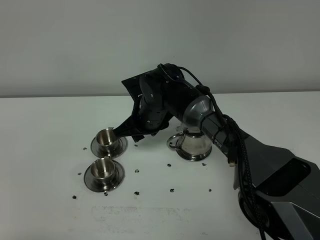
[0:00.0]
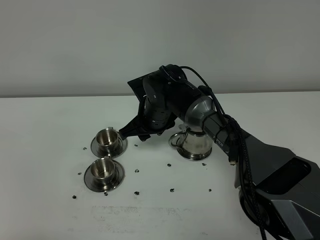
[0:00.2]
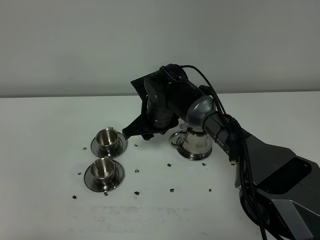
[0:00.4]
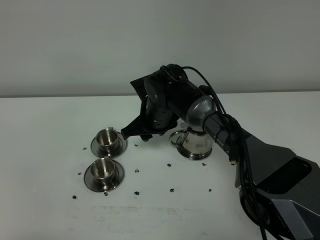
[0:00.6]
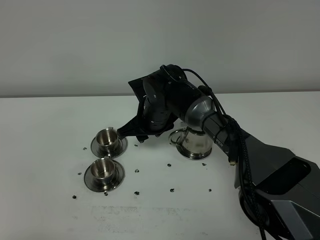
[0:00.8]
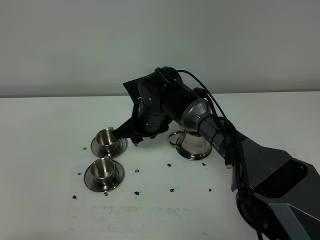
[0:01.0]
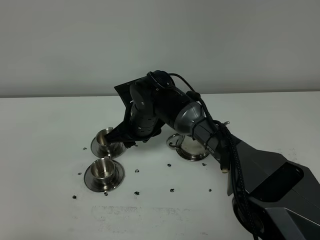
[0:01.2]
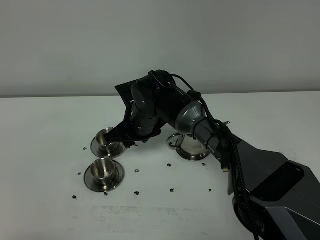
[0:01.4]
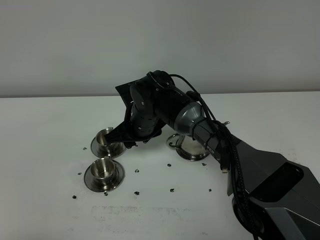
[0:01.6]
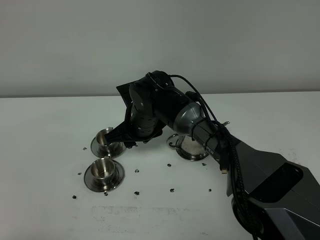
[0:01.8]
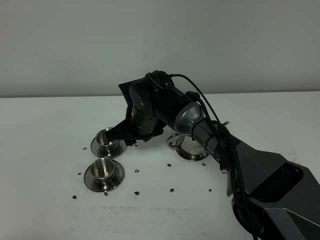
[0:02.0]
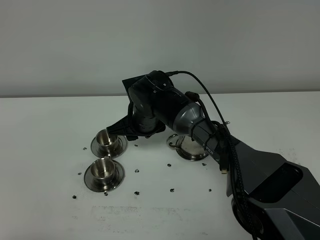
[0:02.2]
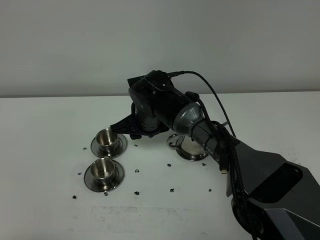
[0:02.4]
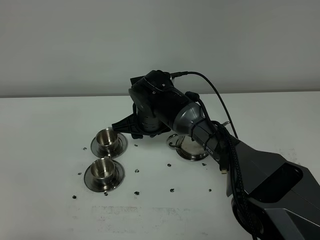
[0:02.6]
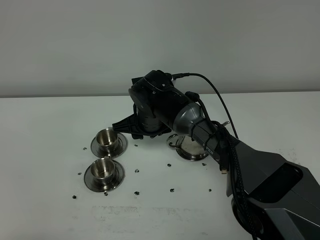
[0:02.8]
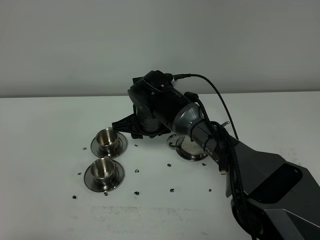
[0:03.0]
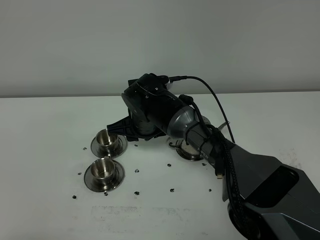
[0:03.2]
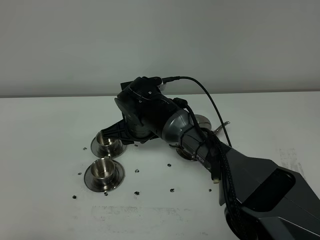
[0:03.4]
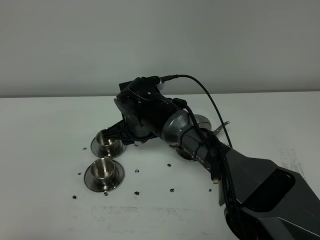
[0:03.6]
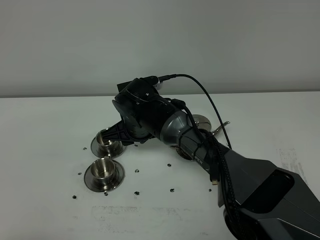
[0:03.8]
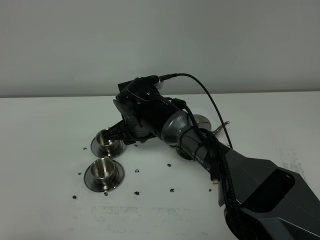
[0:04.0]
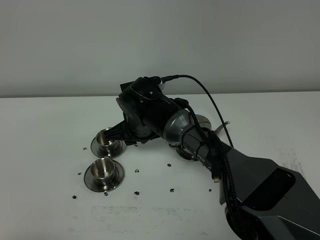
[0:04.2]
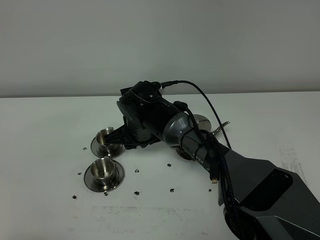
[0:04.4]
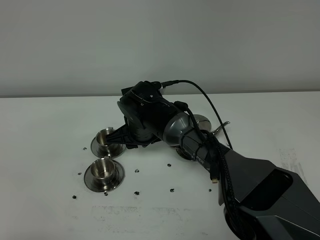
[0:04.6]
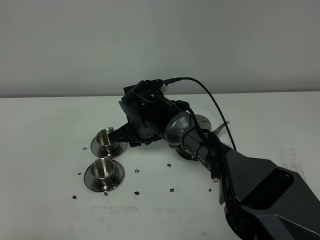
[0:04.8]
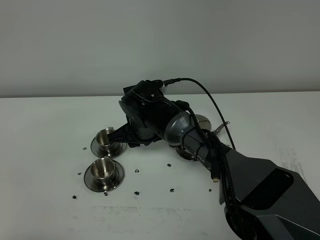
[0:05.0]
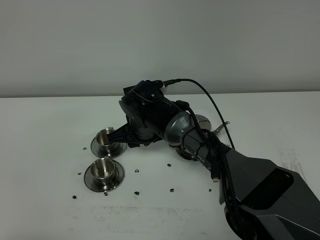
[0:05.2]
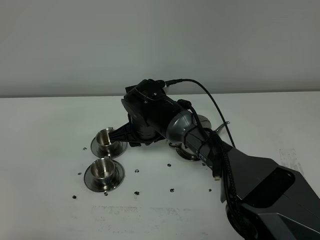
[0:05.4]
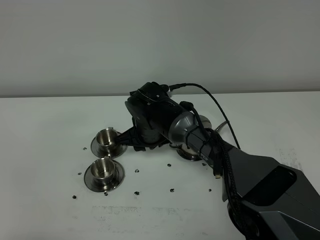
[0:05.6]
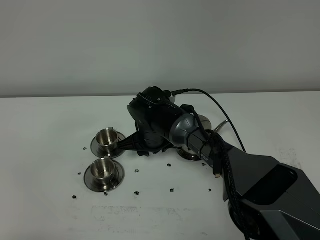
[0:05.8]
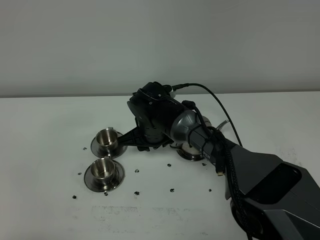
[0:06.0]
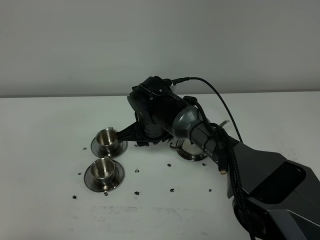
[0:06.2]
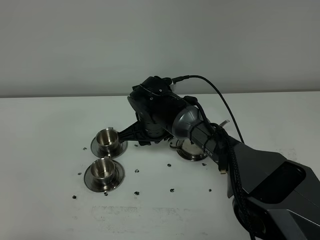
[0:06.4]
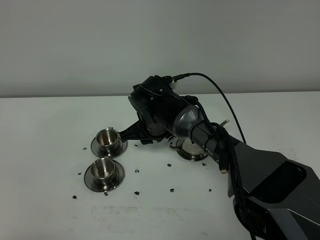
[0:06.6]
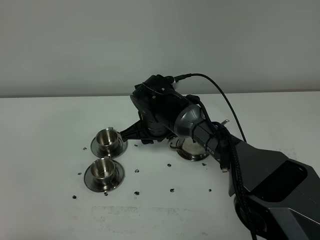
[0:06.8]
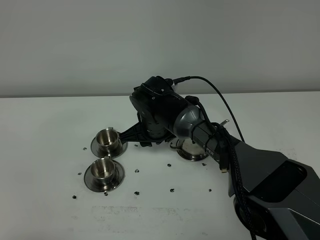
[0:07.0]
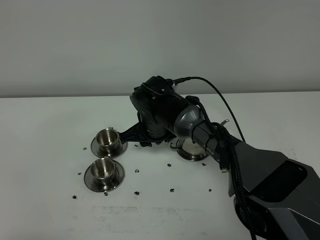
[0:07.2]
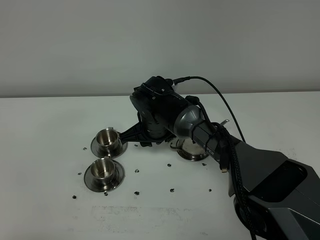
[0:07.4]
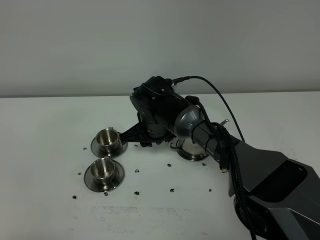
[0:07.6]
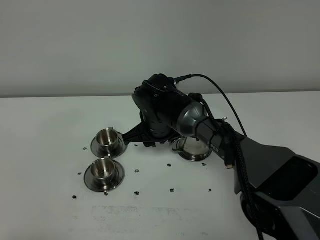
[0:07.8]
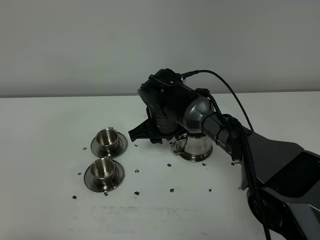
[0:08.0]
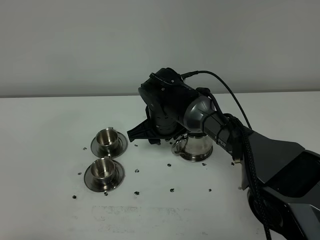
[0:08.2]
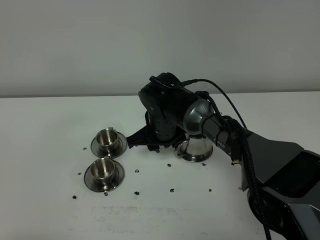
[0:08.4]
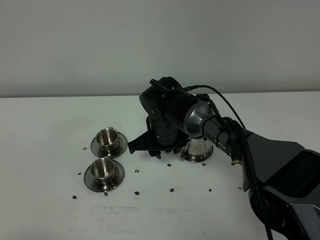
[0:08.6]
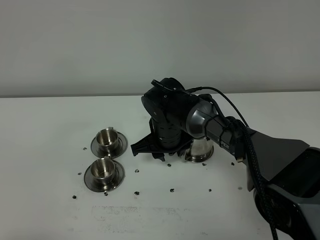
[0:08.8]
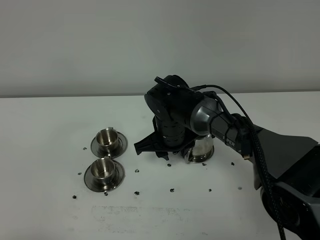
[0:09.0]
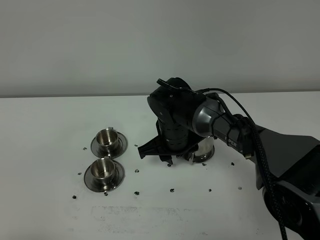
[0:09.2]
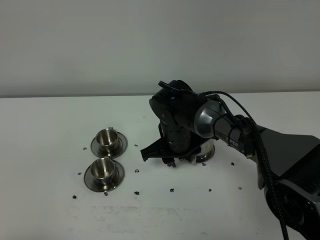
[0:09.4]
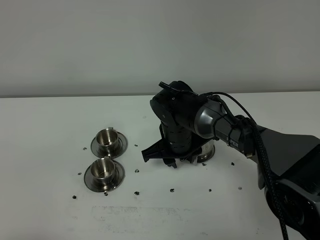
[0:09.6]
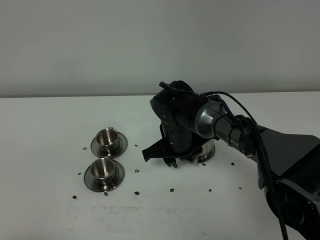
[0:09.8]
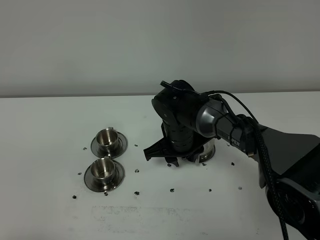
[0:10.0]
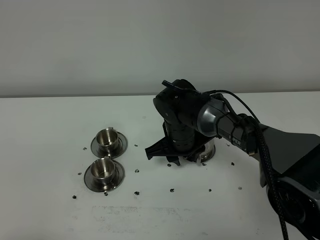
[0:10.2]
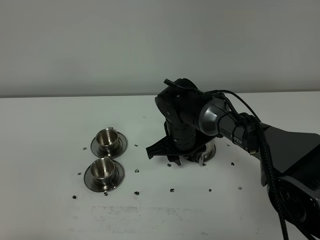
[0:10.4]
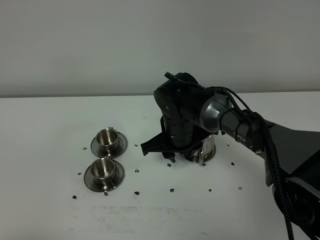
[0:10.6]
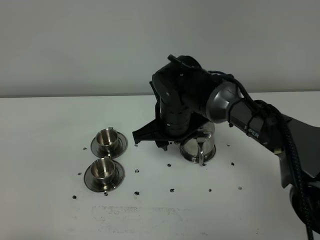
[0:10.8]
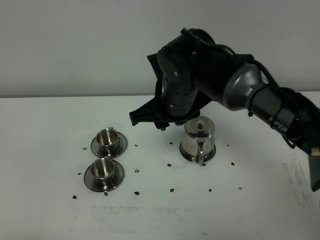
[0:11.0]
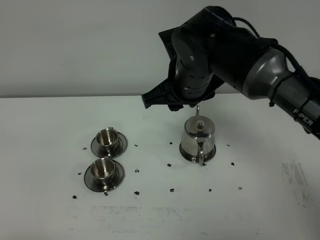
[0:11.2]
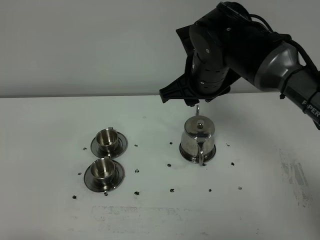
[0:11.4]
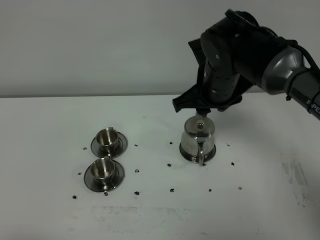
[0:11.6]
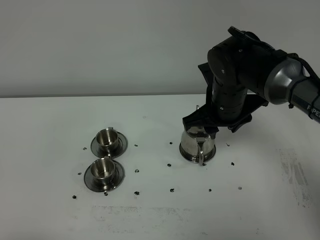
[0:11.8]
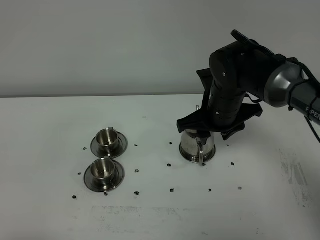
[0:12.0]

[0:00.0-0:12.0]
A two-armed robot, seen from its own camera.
Task of the whole recording: grasp the stainless steel teapot and pour the tea into the two stainless steel teacups one by one, put the stainless steel teapot back in its original place.
0:00.0 to 0:01.6: There are only small adjustments of the grippers.
0:01.6 to 0:06.0: The grippers make only small movements.
0:06.0 to 0:07.6: Neither gripper changes place.
0:07.6 to 0:10.4: There are only small adjustments of the grippers.
0:10.4 to 0:12.0: The right gripper moves upward and to the right, some 10 cm.

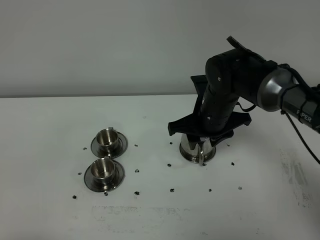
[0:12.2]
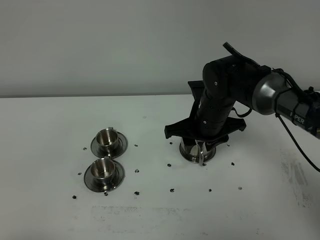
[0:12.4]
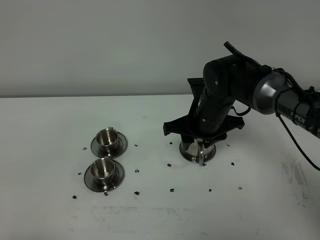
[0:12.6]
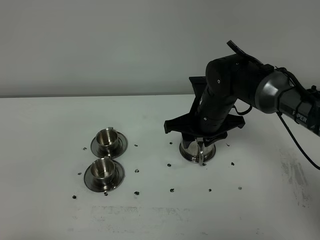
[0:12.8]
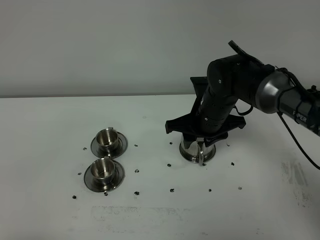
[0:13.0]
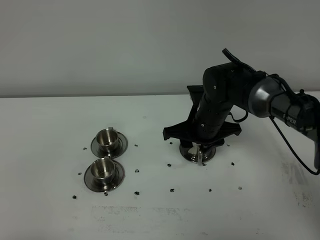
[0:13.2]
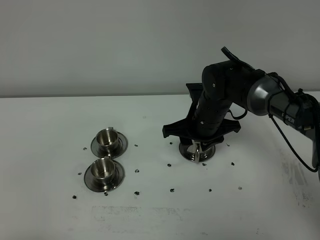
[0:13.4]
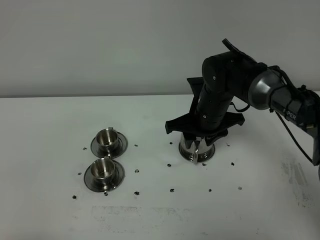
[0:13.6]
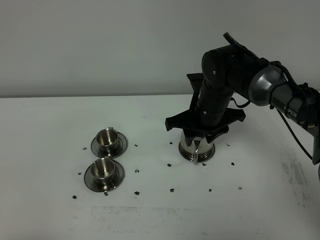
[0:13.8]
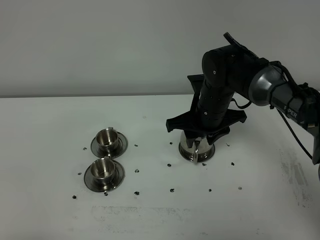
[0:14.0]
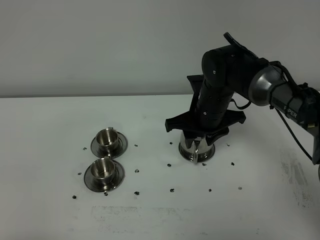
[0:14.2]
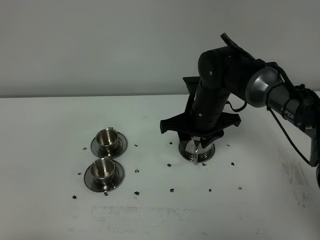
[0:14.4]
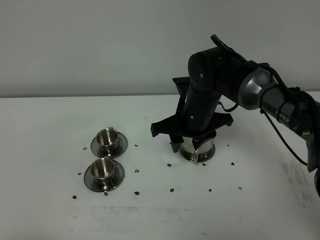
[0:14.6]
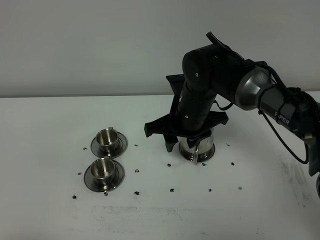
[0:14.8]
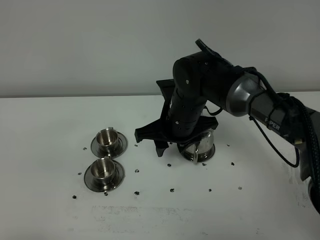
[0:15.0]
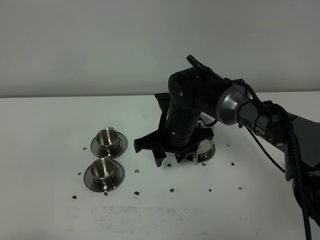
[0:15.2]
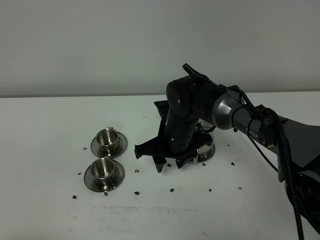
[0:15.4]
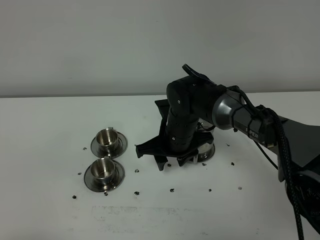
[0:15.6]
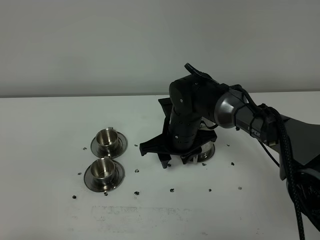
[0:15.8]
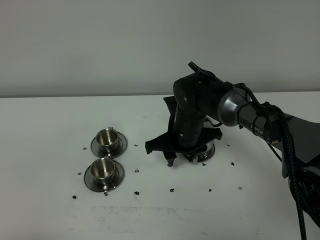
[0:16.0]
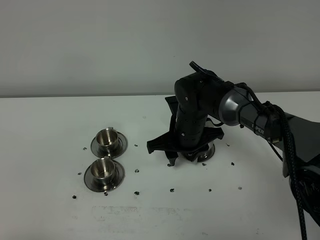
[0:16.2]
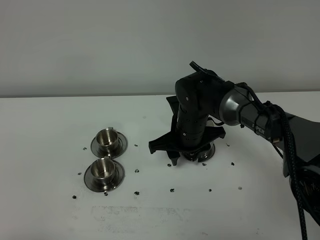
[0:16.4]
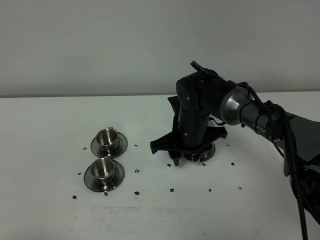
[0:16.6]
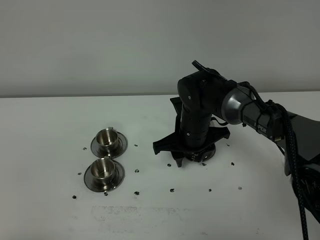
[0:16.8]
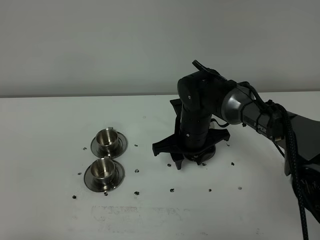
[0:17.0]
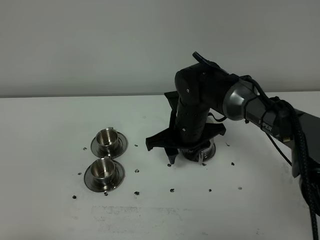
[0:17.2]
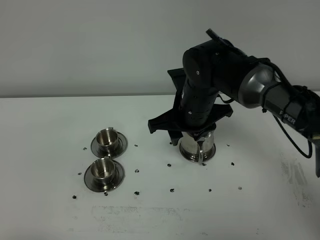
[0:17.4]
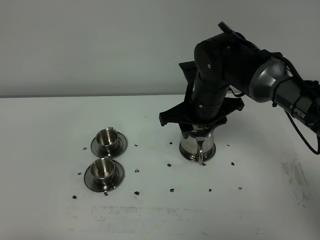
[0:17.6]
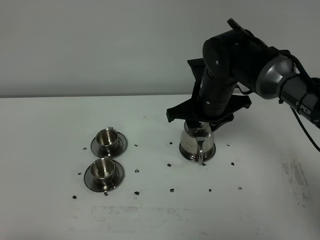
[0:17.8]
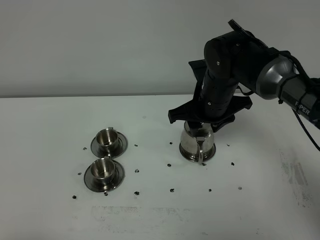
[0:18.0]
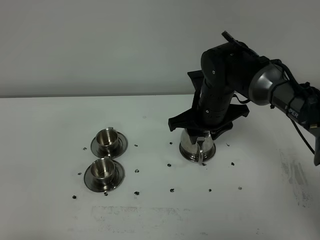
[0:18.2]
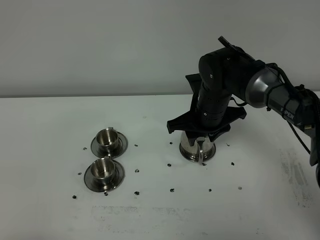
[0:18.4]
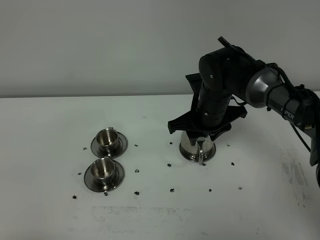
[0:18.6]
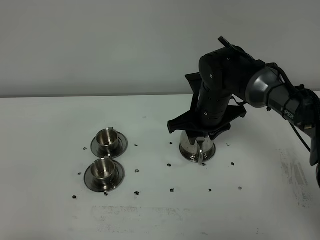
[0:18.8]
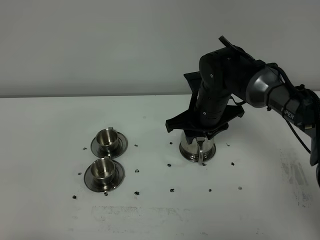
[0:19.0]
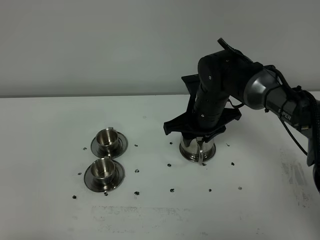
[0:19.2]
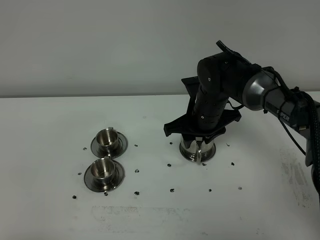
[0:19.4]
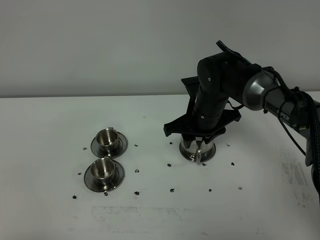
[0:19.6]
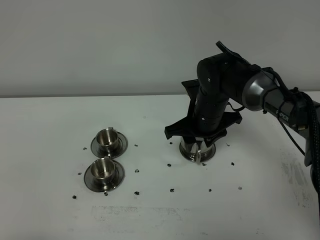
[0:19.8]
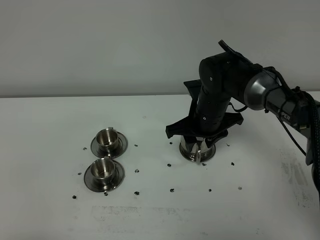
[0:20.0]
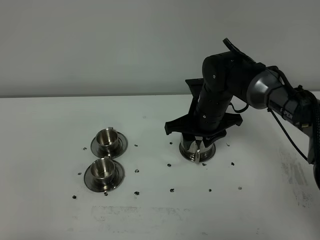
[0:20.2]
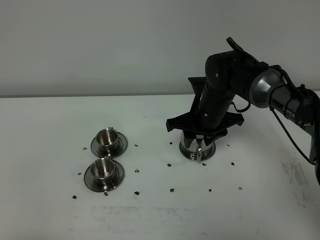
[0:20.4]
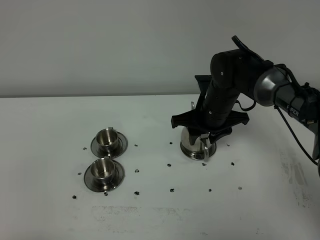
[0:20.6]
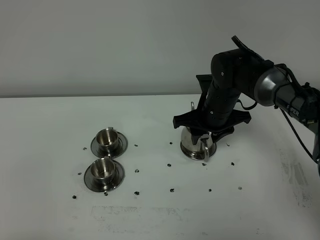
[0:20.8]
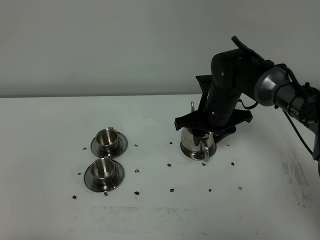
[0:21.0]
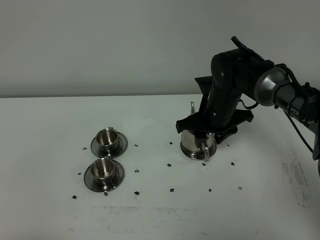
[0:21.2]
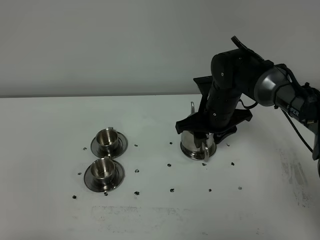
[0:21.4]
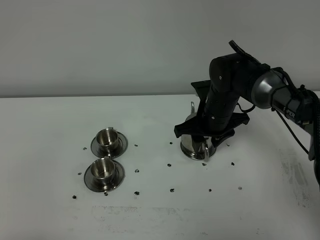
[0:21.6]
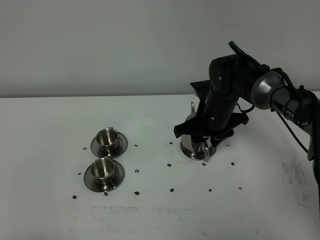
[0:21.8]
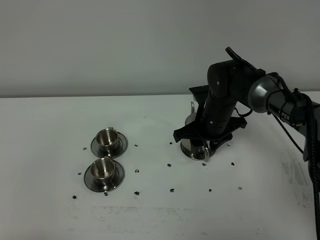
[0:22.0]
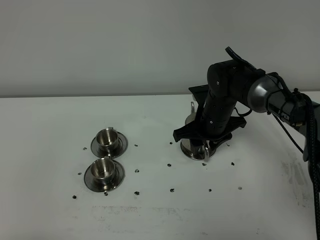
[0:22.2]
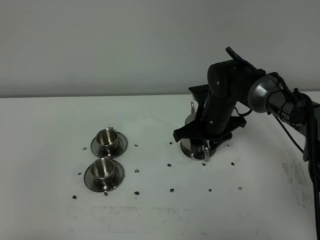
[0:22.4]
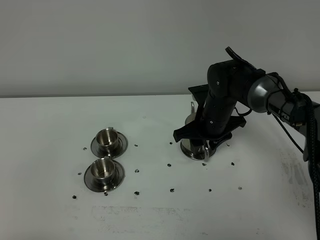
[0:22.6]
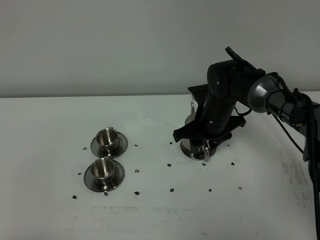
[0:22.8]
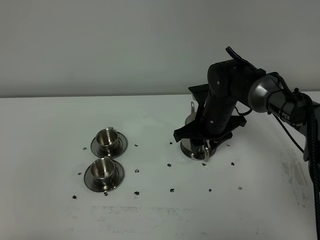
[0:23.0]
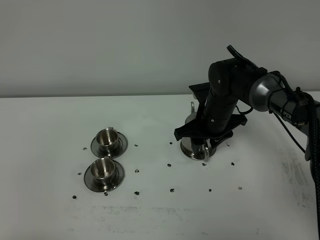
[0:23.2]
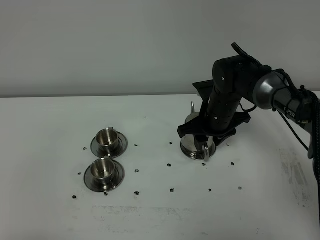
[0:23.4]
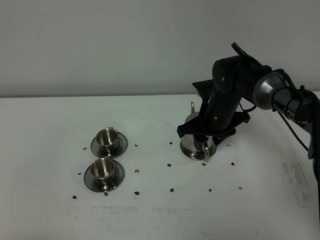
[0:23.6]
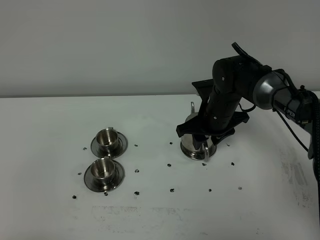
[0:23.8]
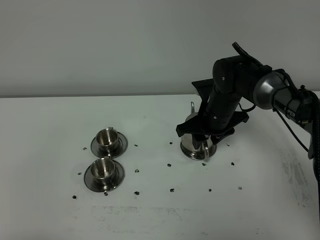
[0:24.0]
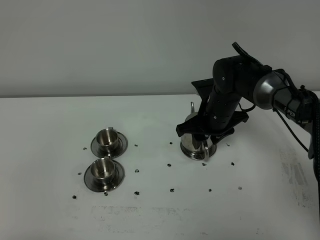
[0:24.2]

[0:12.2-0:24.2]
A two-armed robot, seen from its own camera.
Task of the whole recording: grasp the stainless steel teapot and pour the tea into the two stainless steel teacups one by one, put the stainless steel teapot back in its original place.
0:12.2 to 0:13.8: There are only small adjustments of the grippers.
0:13.8 to 0:15.2: The right gripper travels to the left by some 5 cm.
0:15.2 to 0:16.6: The grippers make only small movements.
0:16.6 to 0:18.2: The right gripper changes place by approximately 5 cm.
0:18.2 to 0:22.6: The grippers stay close to where they were, moving slightly.
0:22.6 to 0:24.2: Both grippers stay put.
